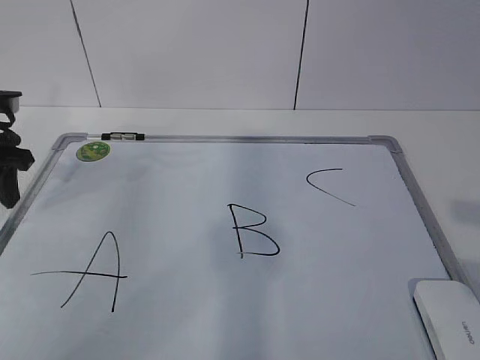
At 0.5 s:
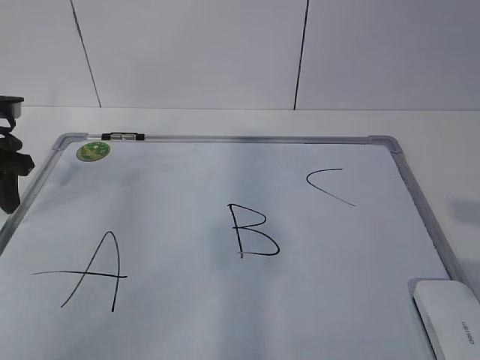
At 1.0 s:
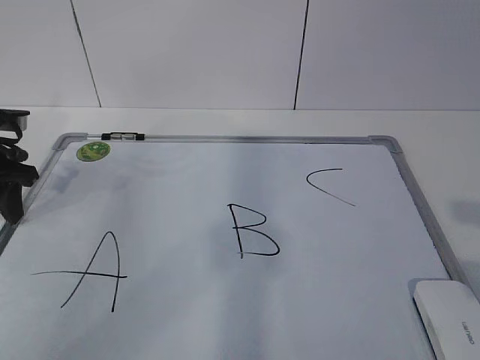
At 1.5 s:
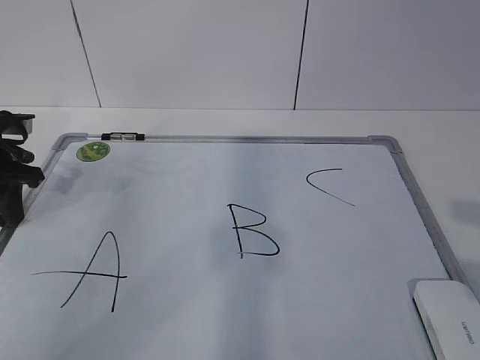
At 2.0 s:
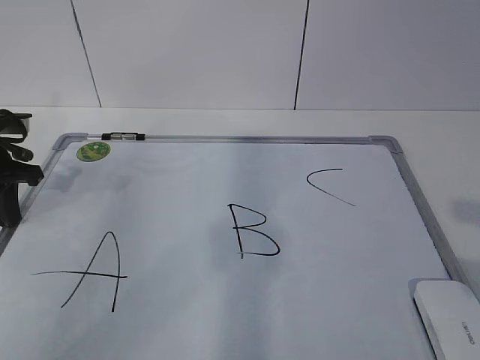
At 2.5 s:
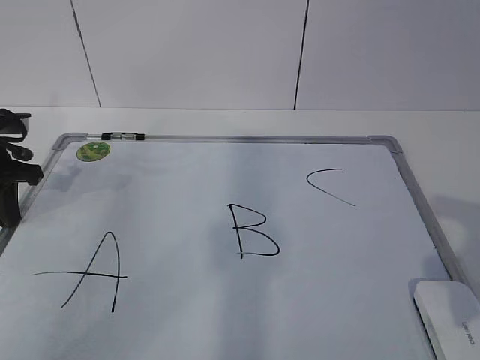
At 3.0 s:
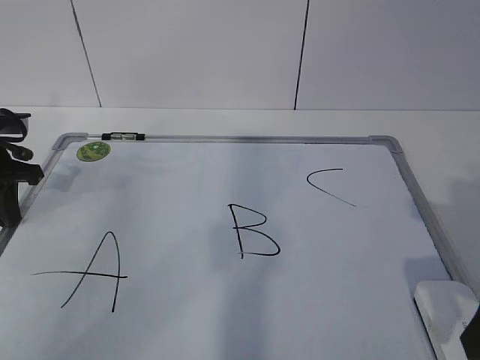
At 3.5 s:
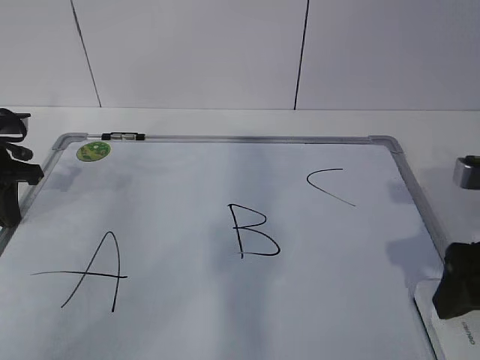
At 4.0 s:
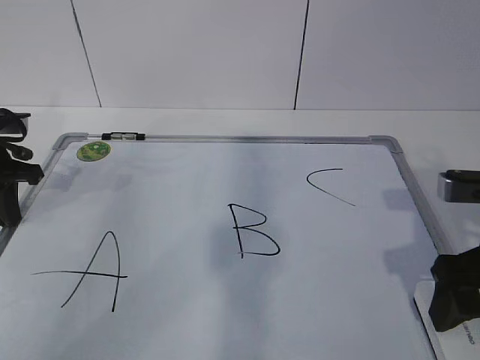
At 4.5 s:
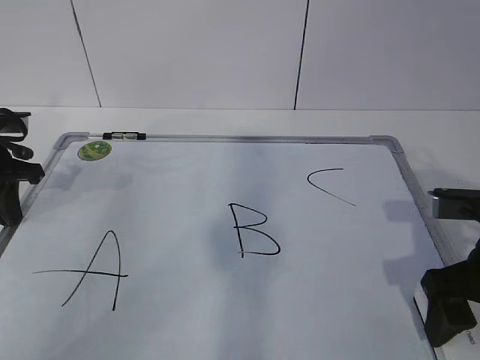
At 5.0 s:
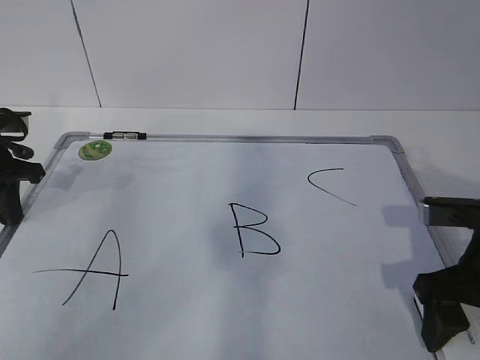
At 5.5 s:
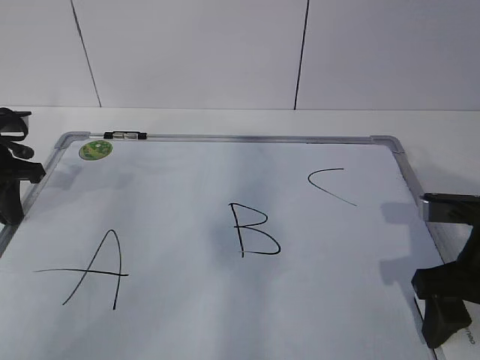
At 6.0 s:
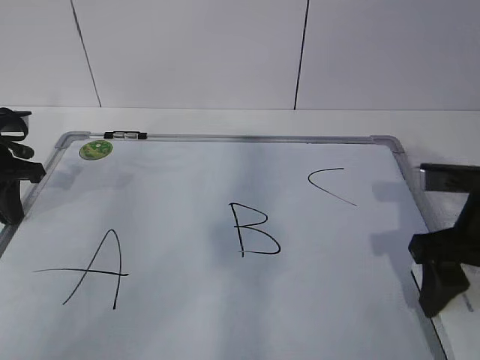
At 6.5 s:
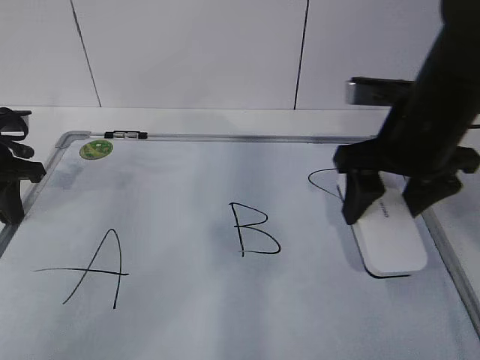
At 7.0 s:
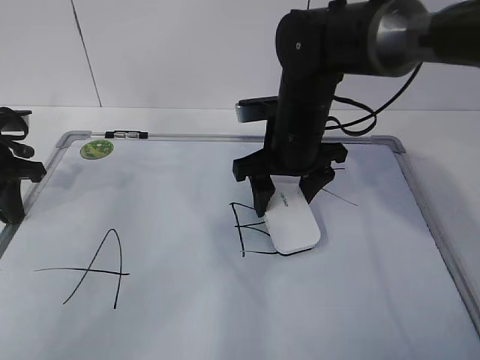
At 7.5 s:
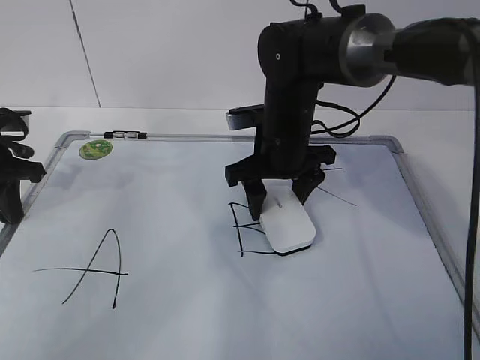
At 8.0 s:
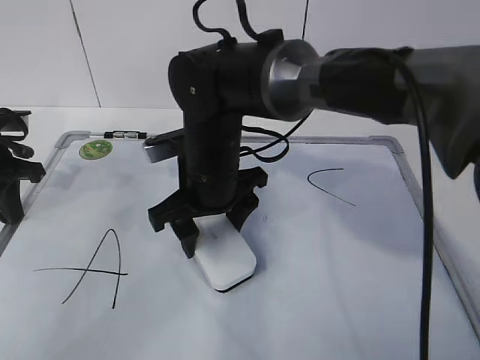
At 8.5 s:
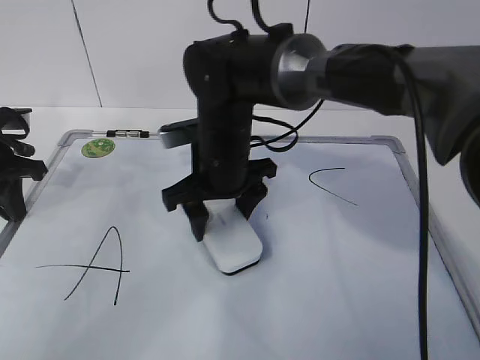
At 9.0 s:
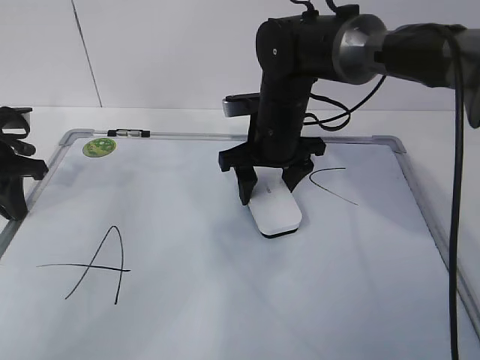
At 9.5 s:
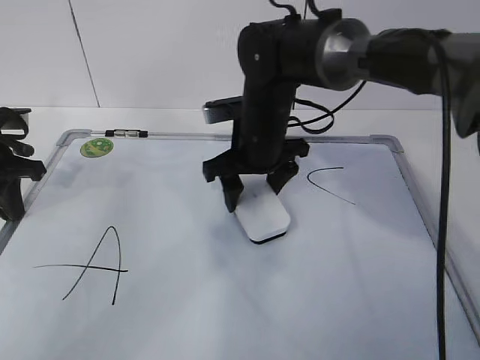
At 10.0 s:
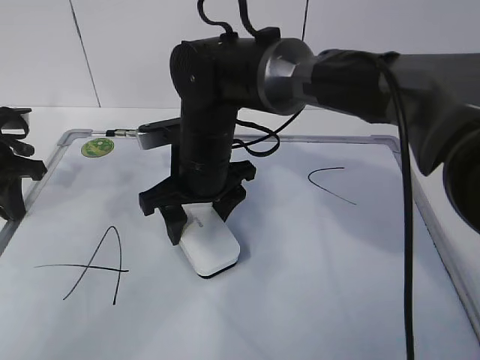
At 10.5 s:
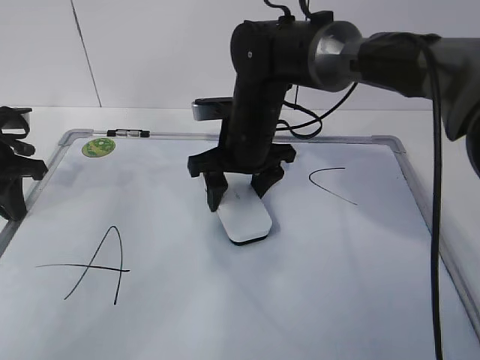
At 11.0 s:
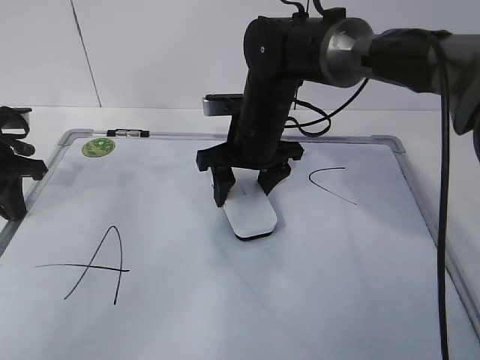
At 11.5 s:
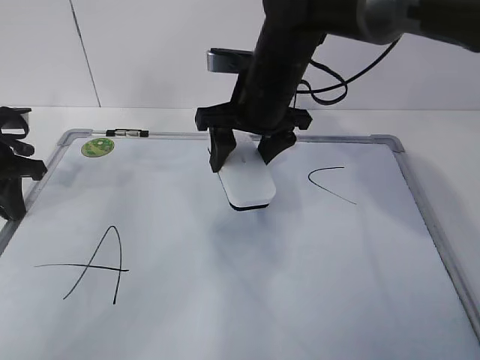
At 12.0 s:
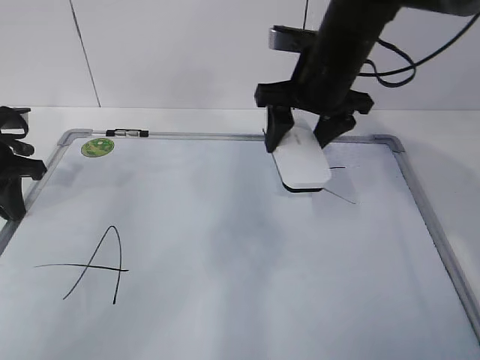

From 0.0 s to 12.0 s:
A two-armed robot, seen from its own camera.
Task of the whole recording: pick up the eraser on the blackboard and erase the letter "B".
Step, from 1.0 s to 3.5 s: Grab the eraser with your right hand.
Step, from 4.0 s to 8.0 s: Erase the letter B with your right hand.
Step, from 8.5 s to 11.0 s: Put down the eraser with your right hand.
From 0.0 s to 2.0 s: The left gripper closes.
From 2.0 s to 4.0 s: The right gripper heads forward and downward, covering roughly 15 cm, and opens.
From 4.0 s to 6.0 s: The right gripper closes.
From 6.0 s to 8.0 s: The right gripper moves to the left, about 25 cm.
From 8.0 s to 10.0 s: The right gripper moves some 10 cm to the right and comes back.
From 10.0 s to 12.0 s: The right gripper shifts about 15 cm to the right and upward.

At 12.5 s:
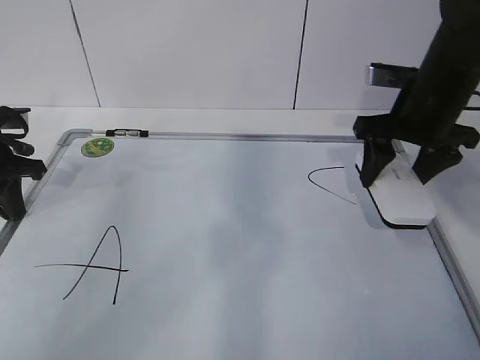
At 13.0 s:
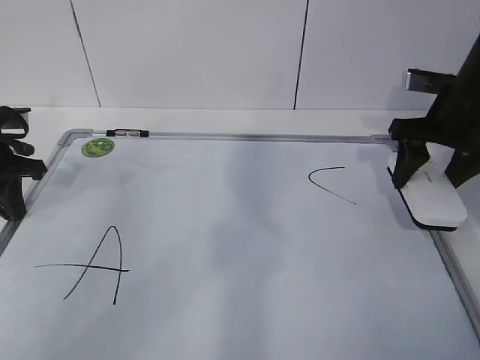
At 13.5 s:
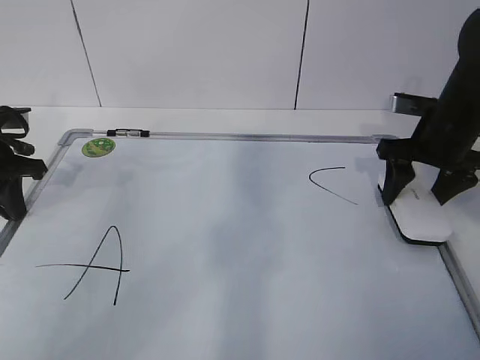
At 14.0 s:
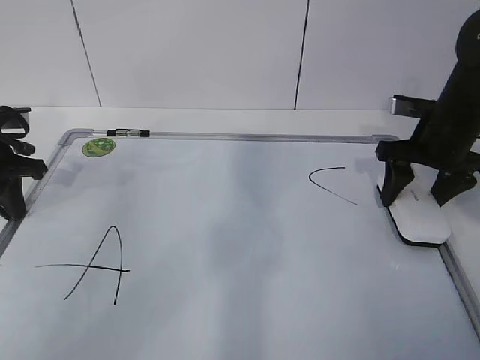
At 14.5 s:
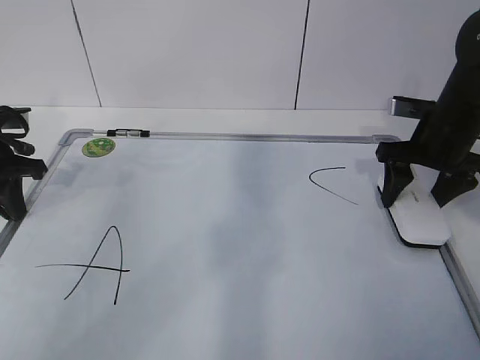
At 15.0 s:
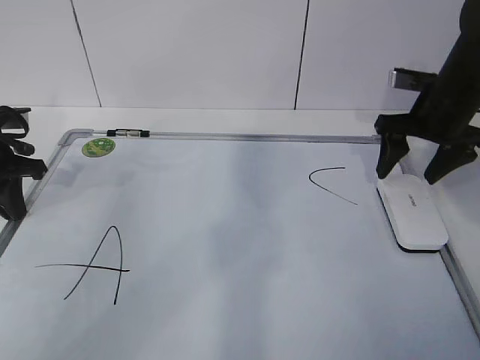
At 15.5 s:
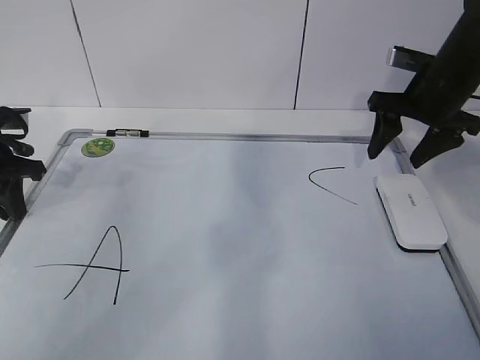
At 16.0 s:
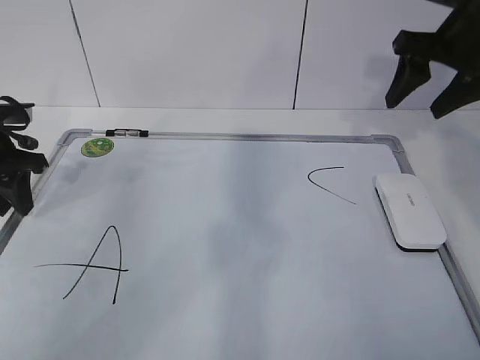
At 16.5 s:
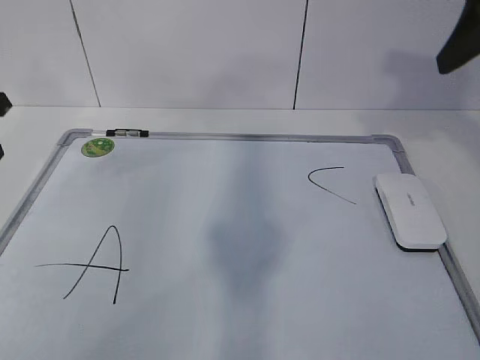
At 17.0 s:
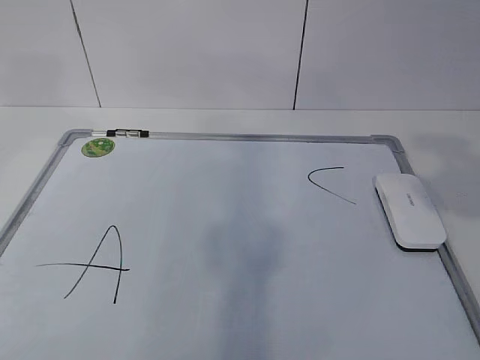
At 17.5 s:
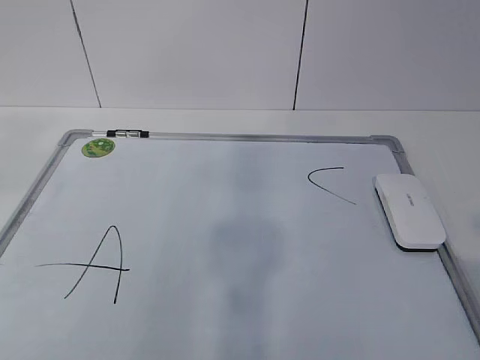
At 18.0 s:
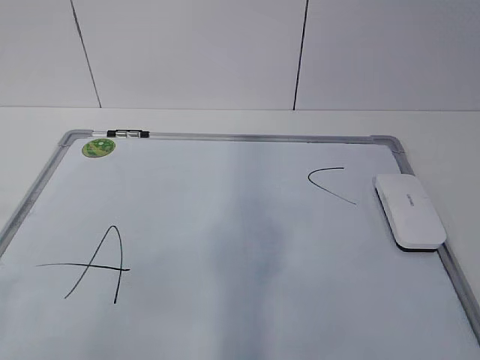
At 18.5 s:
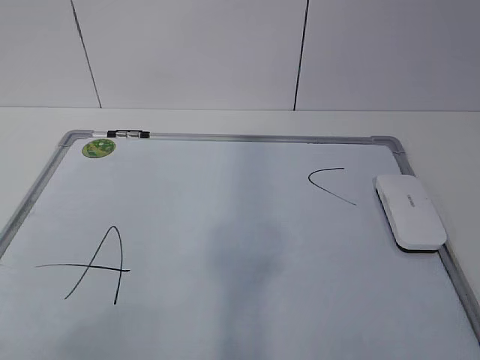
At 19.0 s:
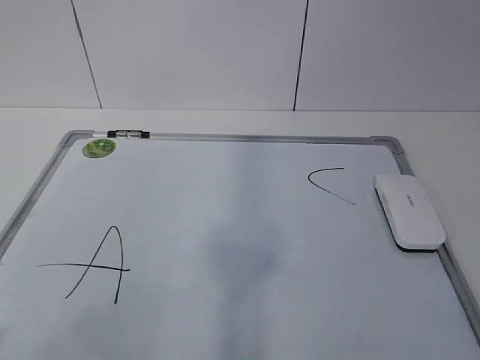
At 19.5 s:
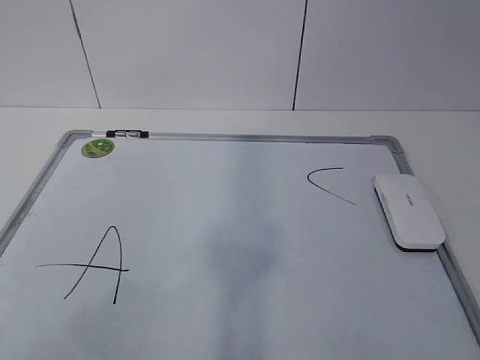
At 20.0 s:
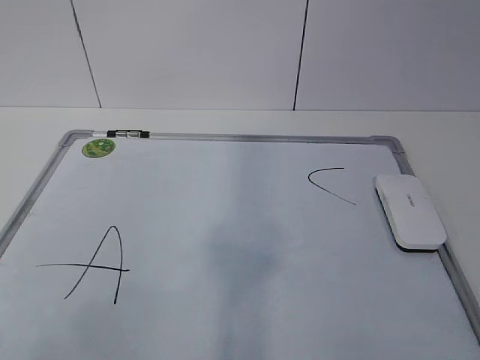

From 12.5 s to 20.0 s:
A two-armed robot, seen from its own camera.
Task of the whole recording: pick up the eraser on the blackboard and erase the letter "B".
From 12.5 s to 14.5 s: The right gripper travels downward by some 5 cm.
From 14.5 s to 16.5 s: The left gripper heads upward, covering roughly 10 cm, and opens. Meanwhile the right gripper goes about 20 cm upward and backward, and opens and closes again.
From 16.5 s to 18.0 s: The two grippers go about 35 cm backward.
